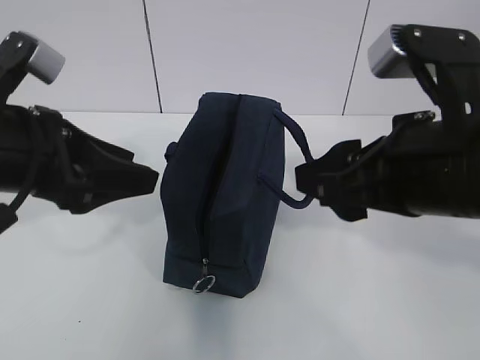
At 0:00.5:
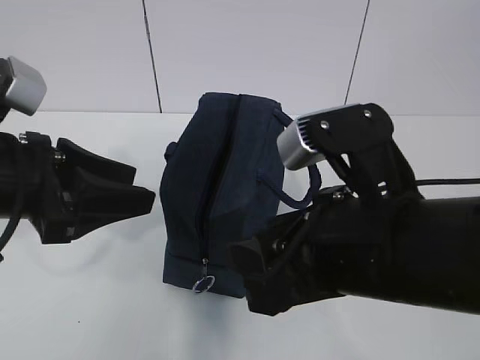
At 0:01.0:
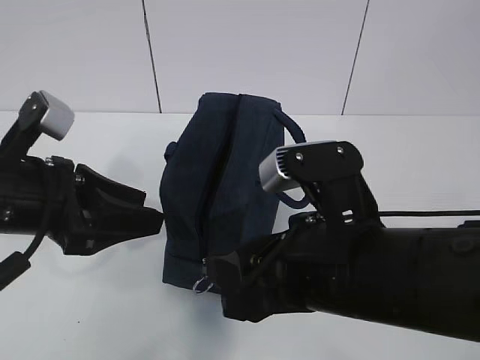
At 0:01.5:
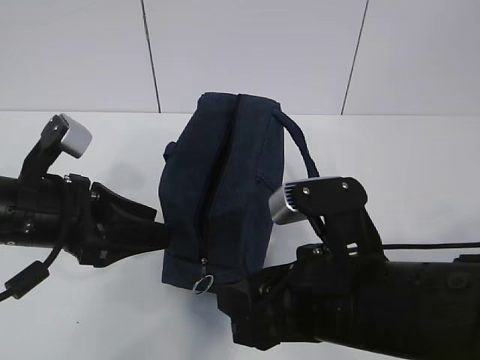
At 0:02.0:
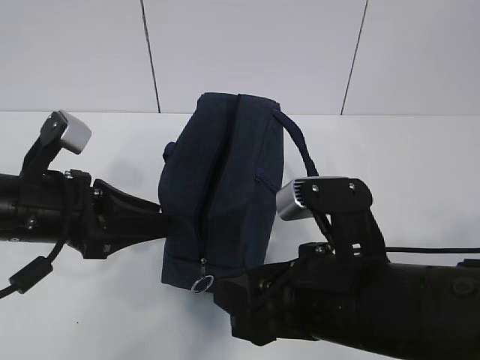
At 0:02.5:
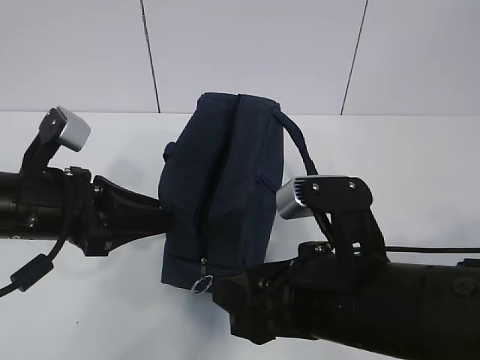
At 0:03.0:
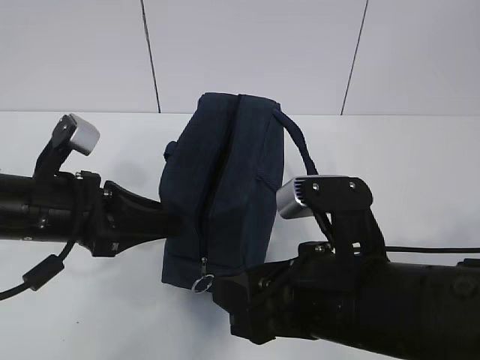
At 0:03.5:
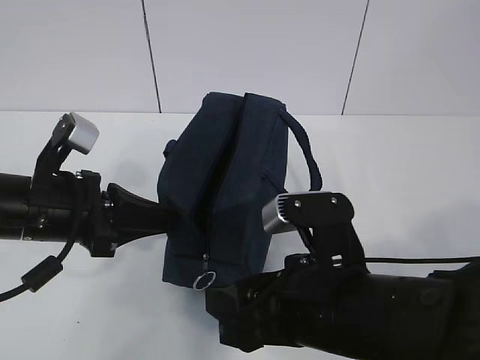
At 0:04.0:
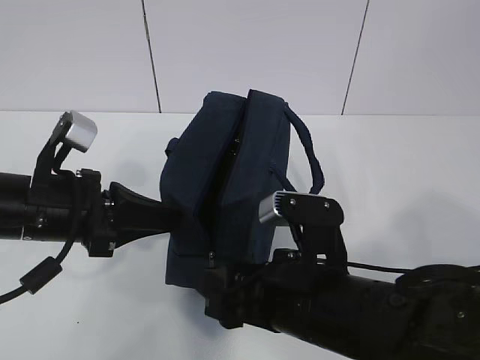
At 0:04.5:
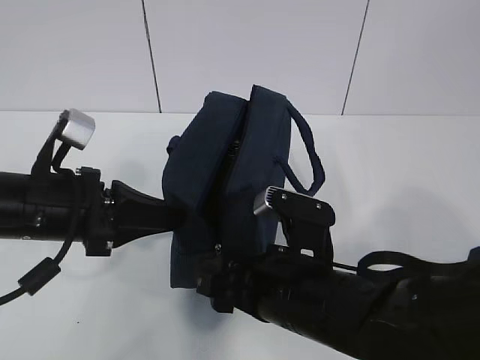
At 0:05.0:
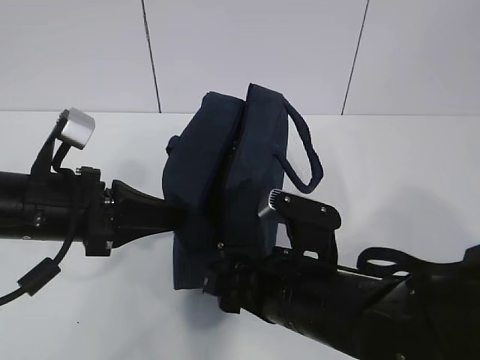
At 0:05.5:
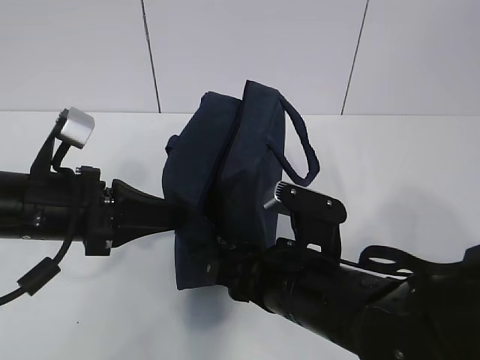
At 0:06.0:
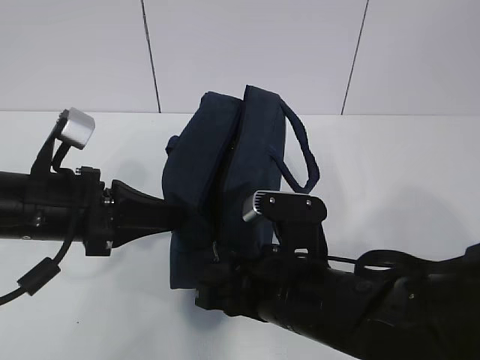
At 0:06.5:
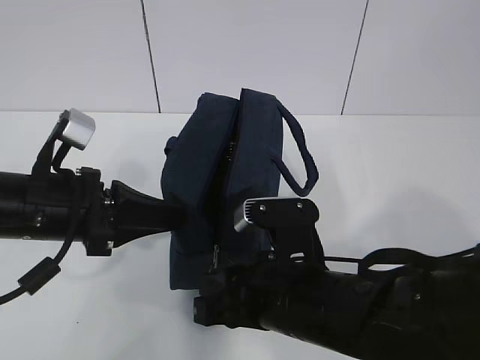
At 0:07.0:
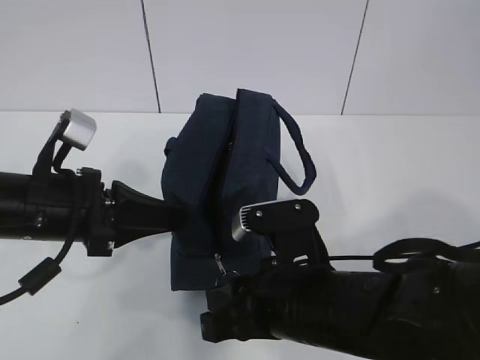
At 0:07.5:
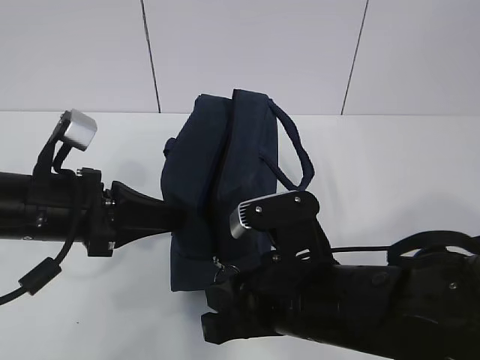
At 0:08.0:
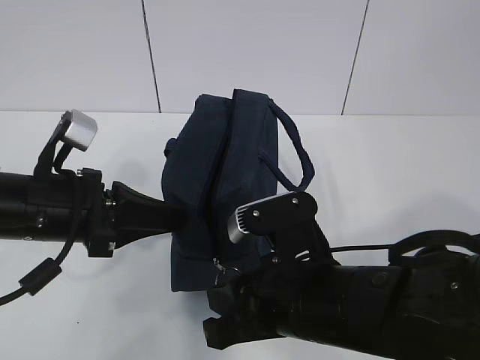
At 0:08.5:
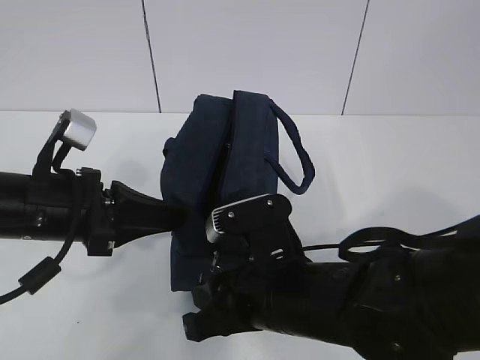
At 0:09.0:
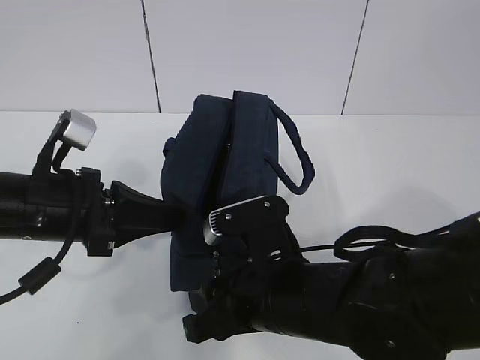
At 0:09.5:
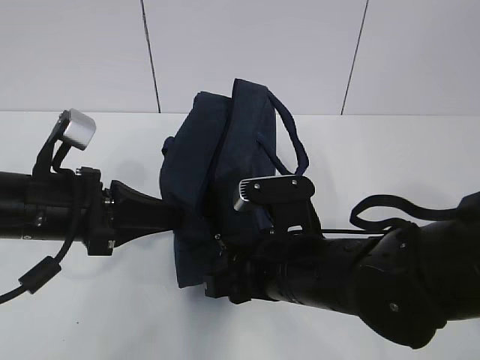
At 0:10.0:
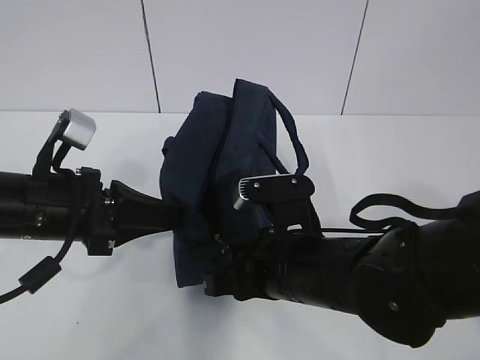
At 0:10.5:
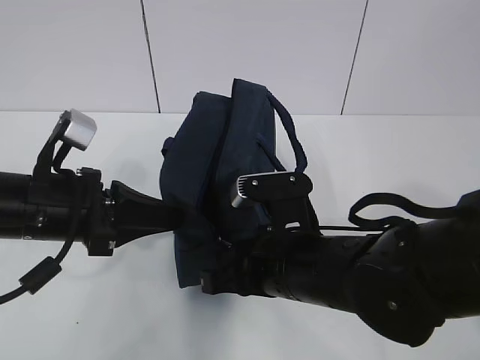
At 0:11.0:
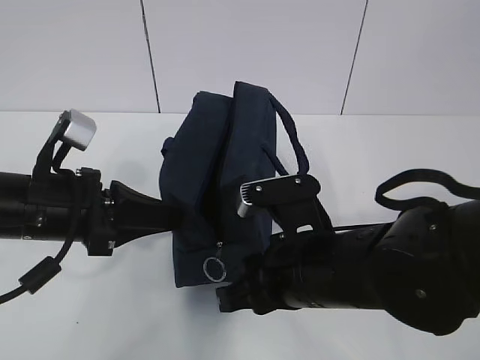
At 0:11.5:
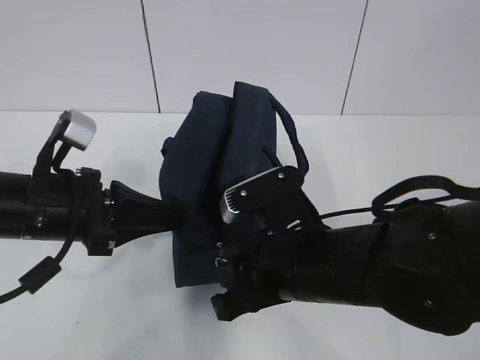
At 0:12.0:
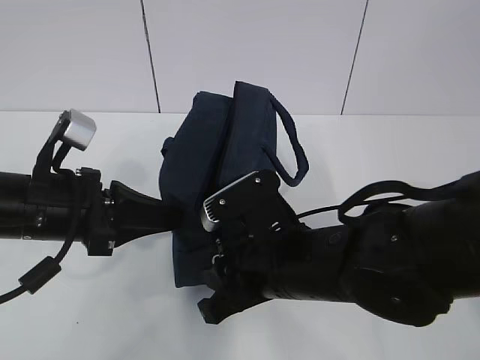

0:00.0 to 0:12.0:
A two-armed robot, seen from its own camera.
Step, 0:00.0 to 0:09.0: Grab the lunch bag with your left hand.
0:00.0 to 0:02.0: The right gripper moves downward and to the left, approximately 10 cm. The left gripper is displaced downward by approximately 10 cm.
0:02.0 to 0:04.0: The left gripper closes. The right gripper ends up some 5 cm from where it was.
0:04.0 to 0:06.0: The right gripper closes.
0:06.0 to 0:10.0: The grippers stay close to where they were, moving slightly.

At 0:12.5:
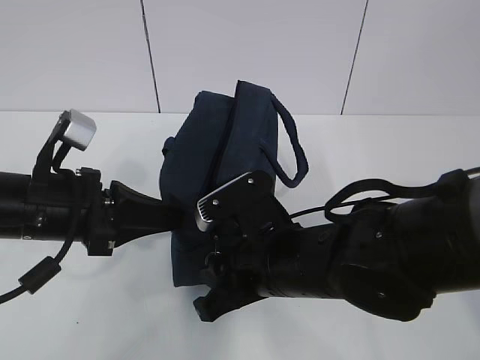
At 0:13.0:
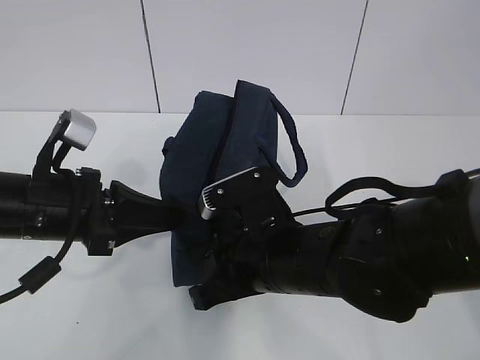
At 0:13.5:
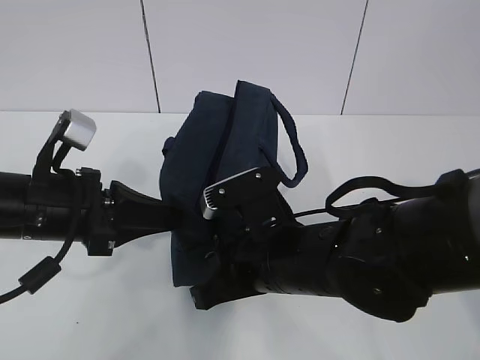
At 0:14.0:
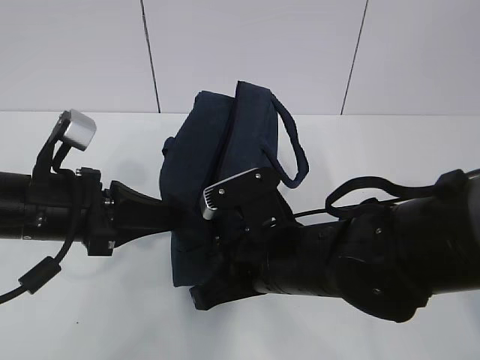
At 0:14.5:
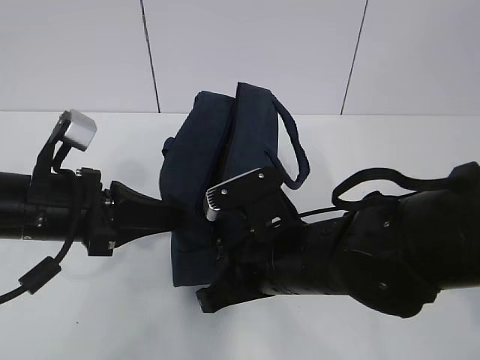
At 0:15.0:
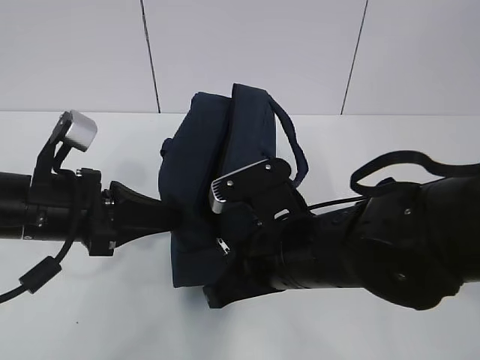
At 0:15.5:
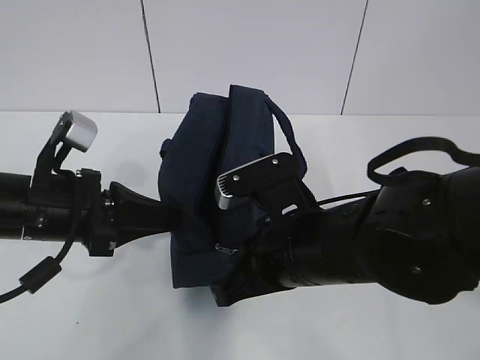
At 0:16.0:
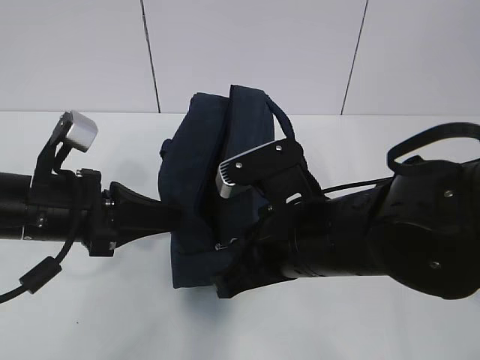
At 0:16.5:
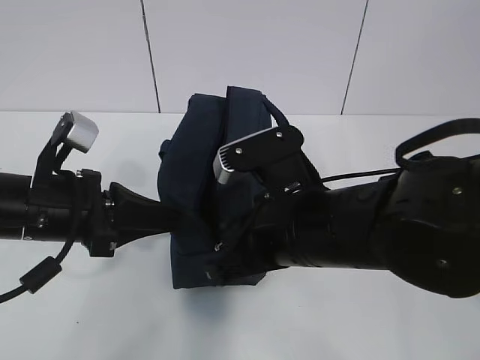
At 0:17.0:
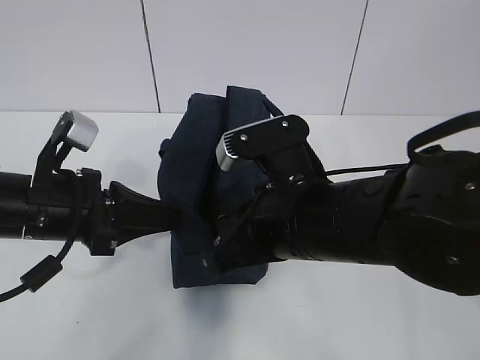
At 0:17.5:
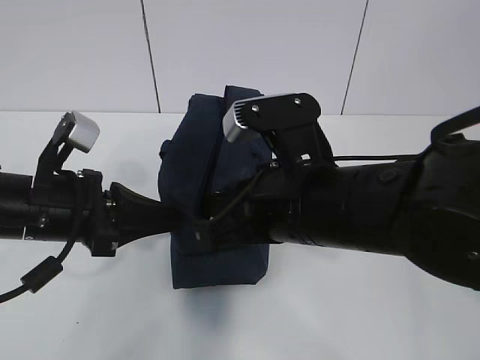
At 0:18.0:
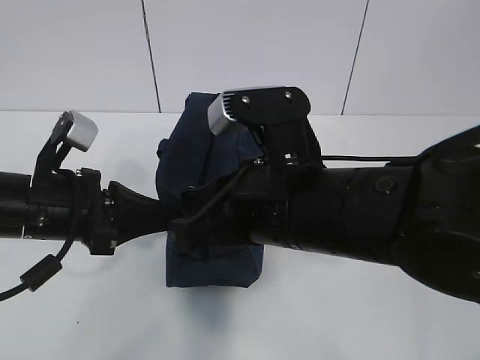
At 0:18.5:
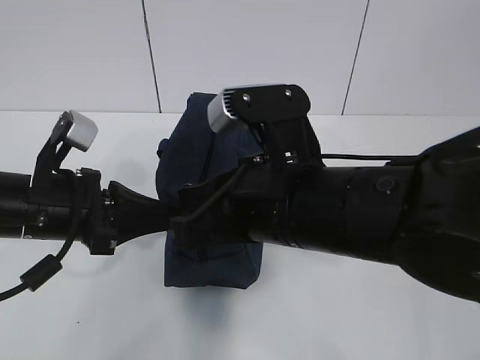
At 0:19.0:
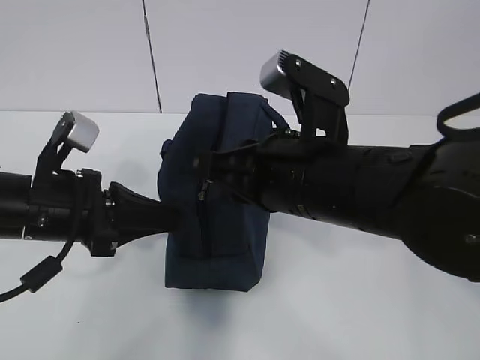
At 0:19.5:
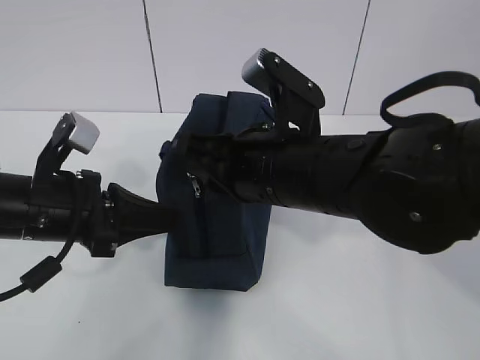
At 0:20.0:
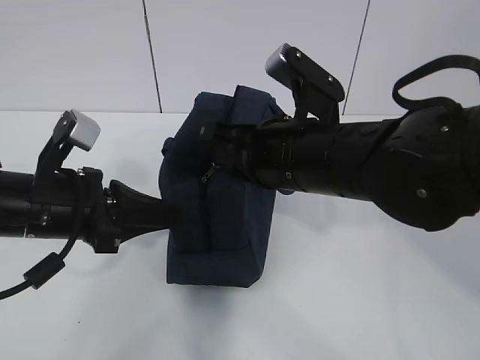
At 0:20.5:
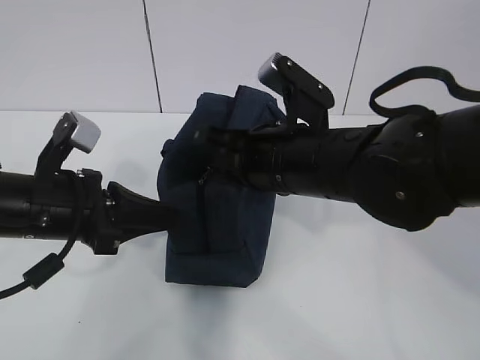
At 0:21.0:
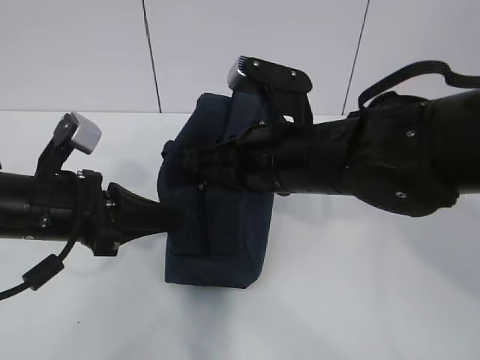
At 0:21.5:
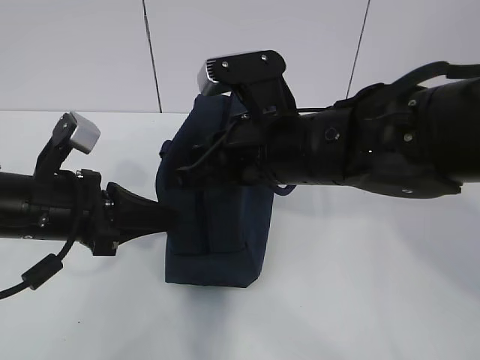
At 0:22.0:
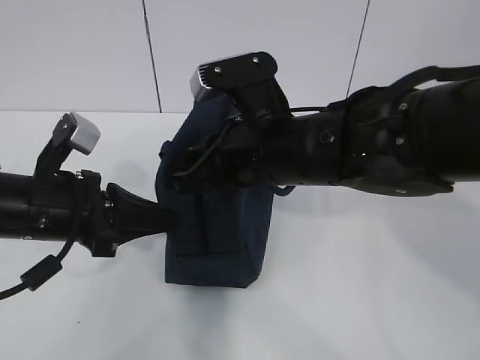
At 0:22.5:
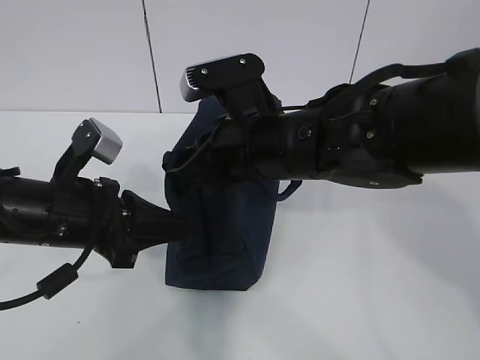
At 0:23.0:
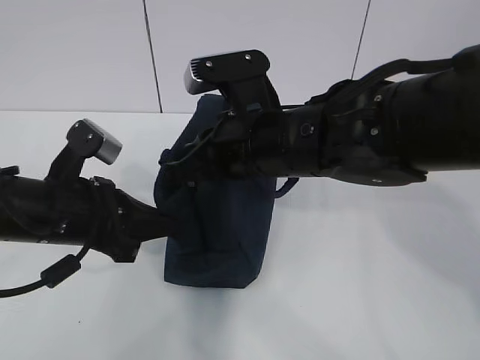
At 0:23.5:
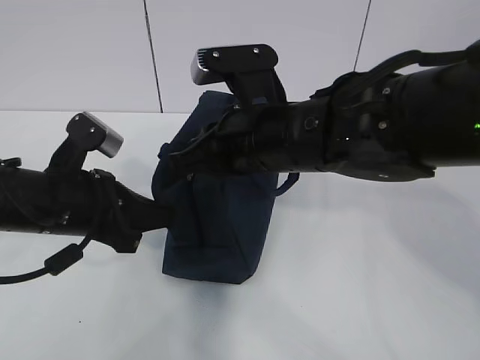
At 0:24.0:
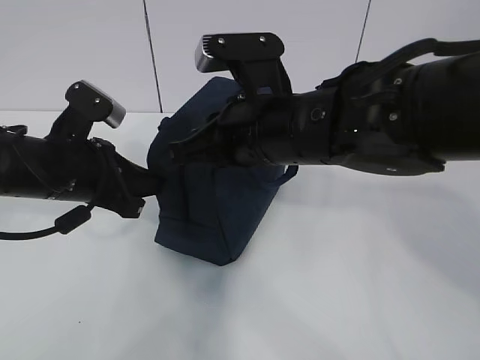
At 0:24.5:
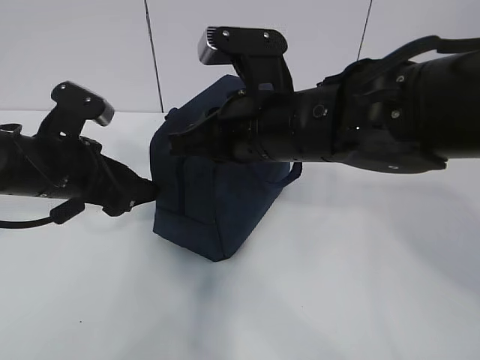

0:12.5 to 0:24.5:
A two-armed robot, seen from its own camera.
Step, 0:12.5 to 0:18.5: Pull the zipper with your right hand.
0:12.5 to 0:14.5: The right gripper closes its fingers.
0:14.5 to 0:16.5: The right gripper goes approximately 5 cm upward.
0:16.5 to 0:18.5: The grippers move only a little.
0:18.5 to 0:20.5: The right gripper shifts about 5 cm forward.
0:22.5 to 0:24.5: The left gripper moves forward, approximately 5 cm, and opens its fingers.

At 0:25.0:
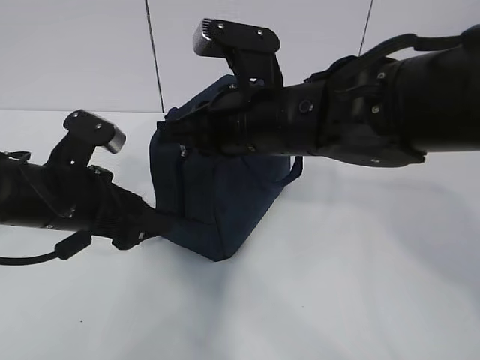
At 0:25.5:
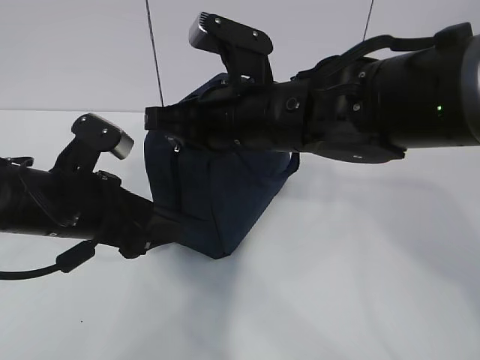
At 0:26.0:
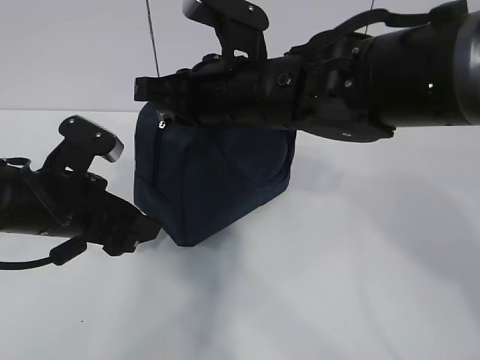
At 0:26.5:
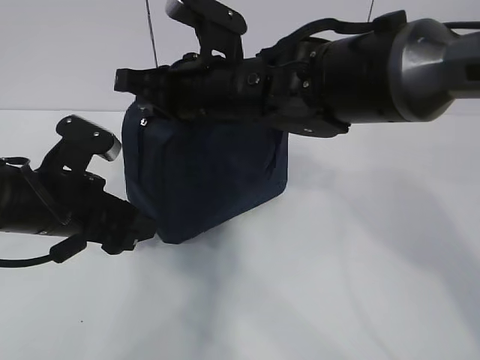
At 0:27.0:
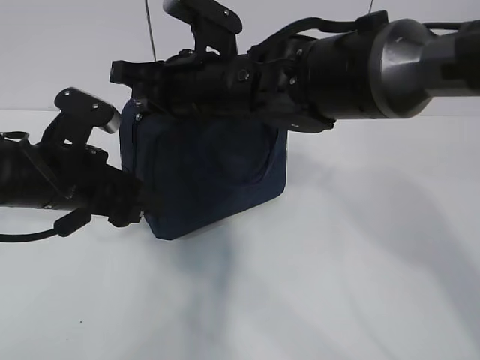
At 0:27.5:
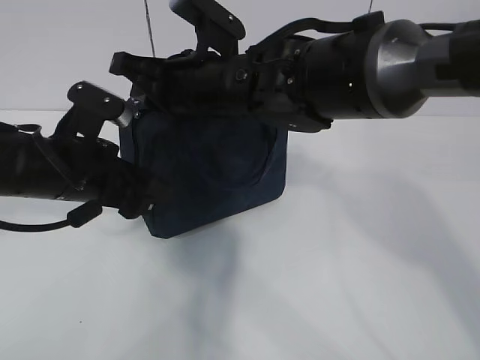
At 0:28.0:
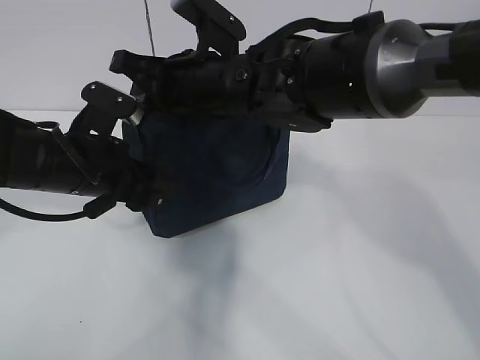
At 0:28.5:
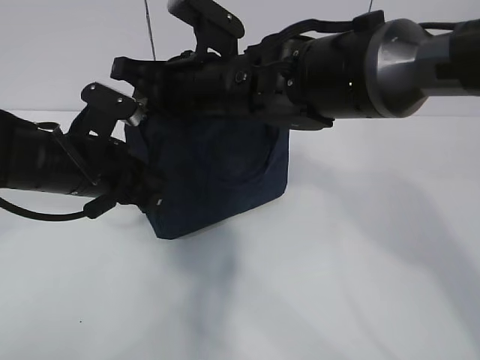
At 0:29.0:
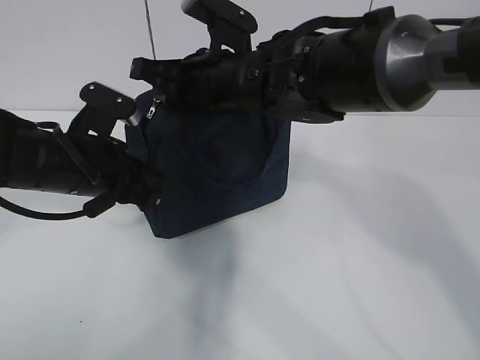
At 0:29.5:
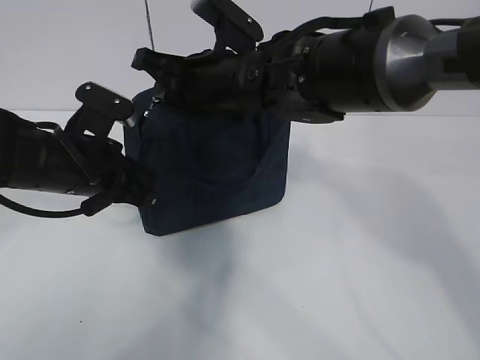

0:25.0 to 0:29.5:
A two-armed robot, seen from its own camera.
0:25.0 to 0:27.0: The right gripper travels forward by roughly 5 cm.
0:27.0 to 0:29.5: The left gripper closes up.
